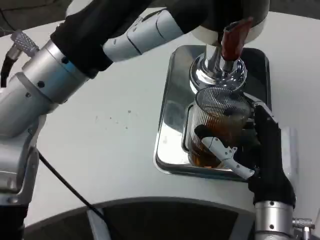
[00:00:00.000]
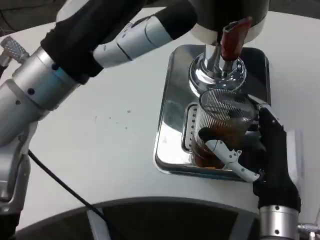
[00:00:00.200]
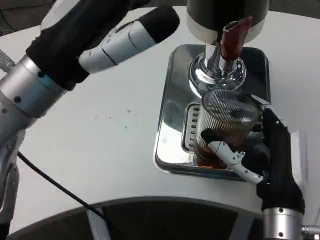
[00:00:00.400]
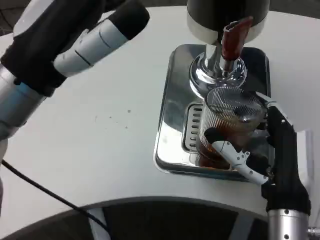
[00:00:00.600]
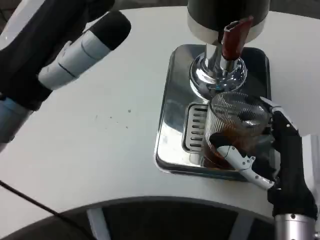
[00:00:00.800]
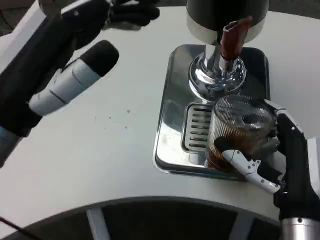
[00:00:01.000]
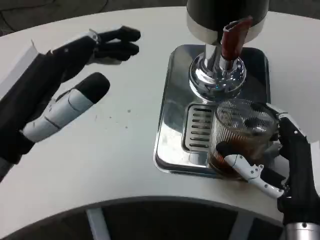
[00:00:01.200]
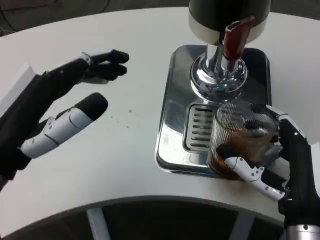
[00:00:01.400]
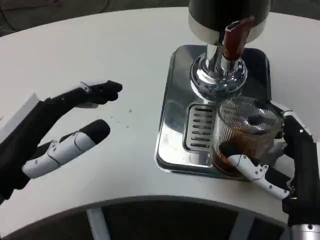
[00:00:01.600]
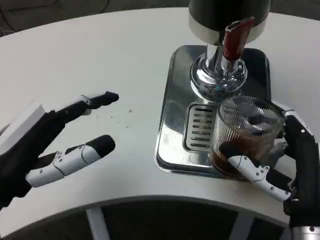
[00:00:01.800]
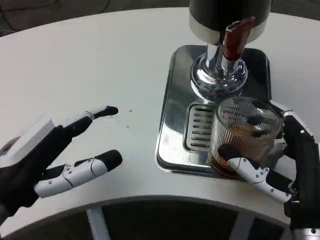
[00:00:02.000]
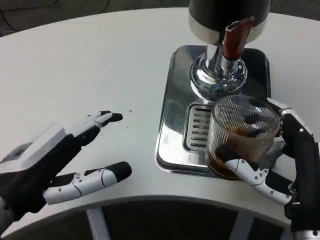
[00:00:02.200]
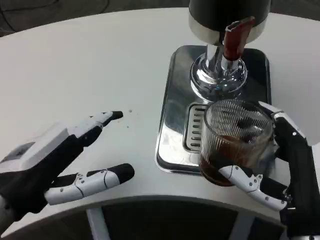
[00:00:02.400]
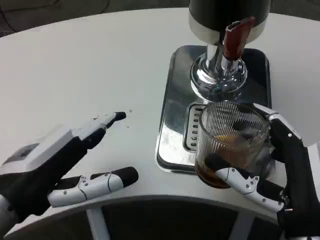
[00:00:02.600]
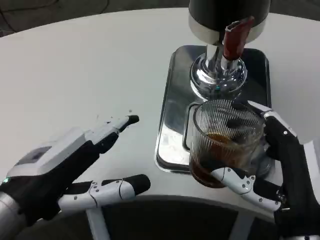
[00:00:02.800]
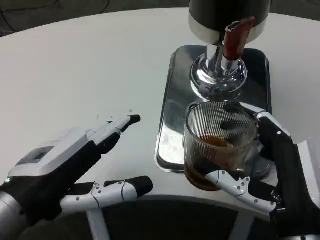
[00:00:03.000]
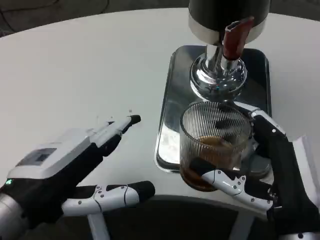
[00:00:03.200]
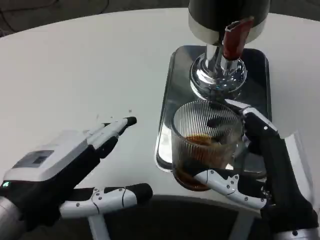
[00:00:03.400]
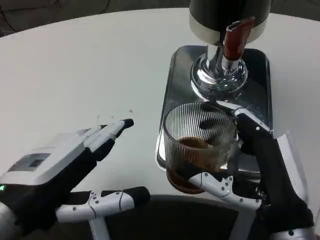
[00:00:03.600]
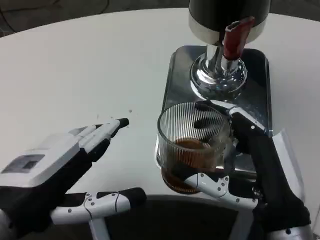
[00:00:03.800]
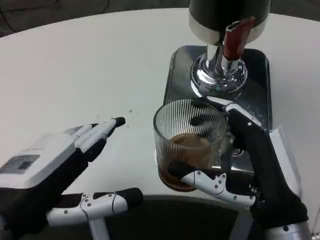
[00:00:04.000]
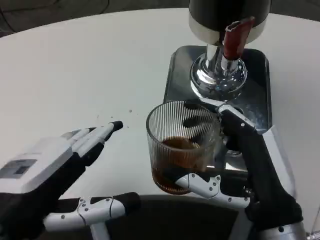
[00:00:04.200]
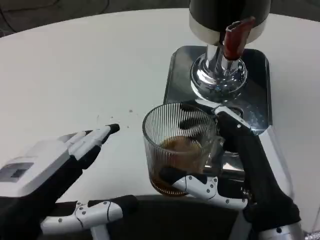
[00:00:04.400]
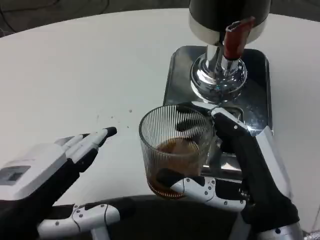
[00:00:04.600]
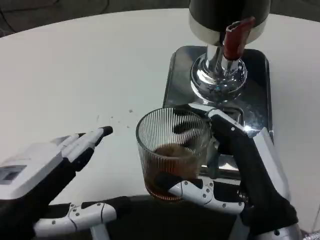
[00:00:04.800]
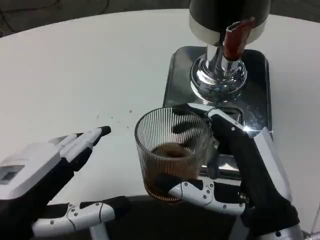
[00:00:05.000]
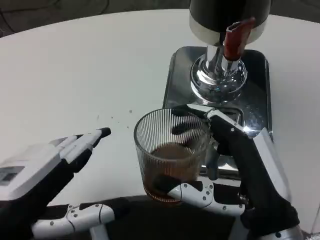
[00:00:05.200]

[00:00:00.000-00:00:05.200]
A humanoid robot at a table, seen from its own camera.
Task of the whole recording: Grasp the cup under the faucet to collect the drink, then remove the cup.
00:00:00.000 to 00:00:01.800: The left hand shifts some 15 cm downward, backward and to the left, while the right hand ends up approximately 5 cm from where it was.

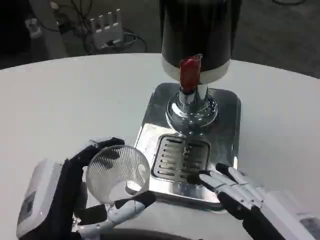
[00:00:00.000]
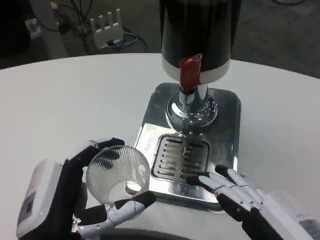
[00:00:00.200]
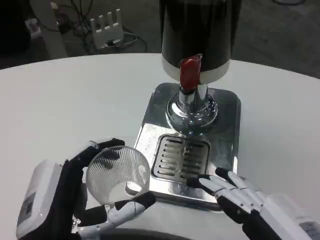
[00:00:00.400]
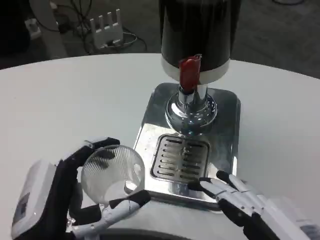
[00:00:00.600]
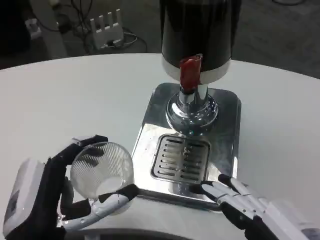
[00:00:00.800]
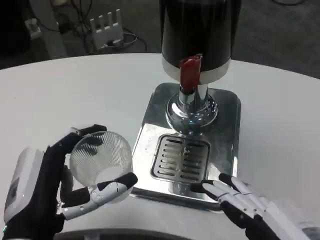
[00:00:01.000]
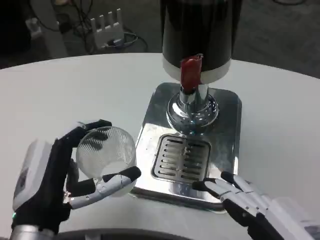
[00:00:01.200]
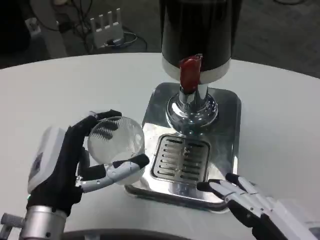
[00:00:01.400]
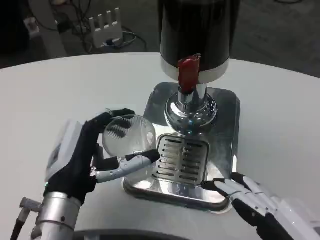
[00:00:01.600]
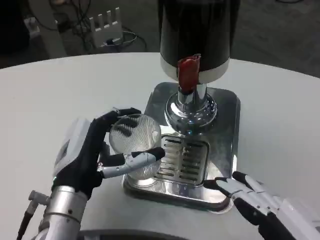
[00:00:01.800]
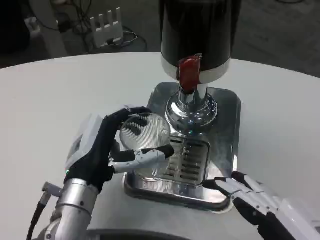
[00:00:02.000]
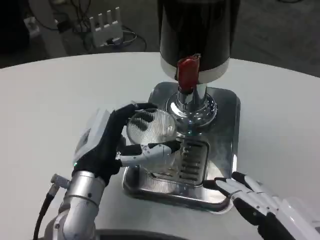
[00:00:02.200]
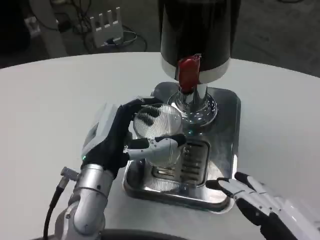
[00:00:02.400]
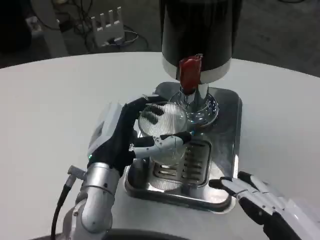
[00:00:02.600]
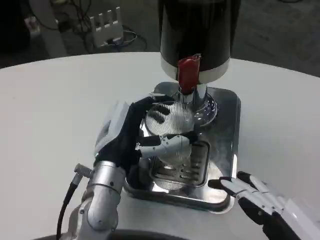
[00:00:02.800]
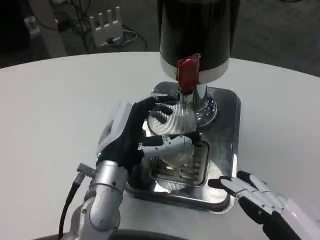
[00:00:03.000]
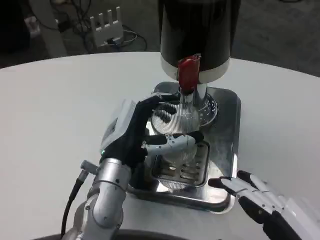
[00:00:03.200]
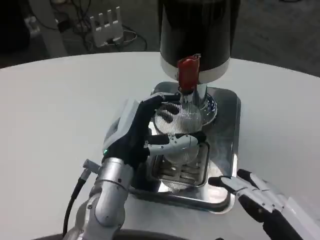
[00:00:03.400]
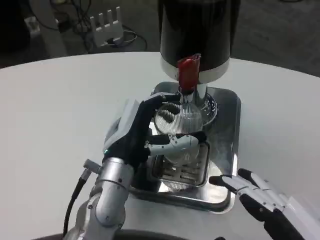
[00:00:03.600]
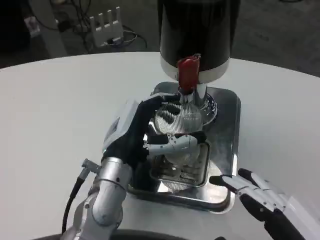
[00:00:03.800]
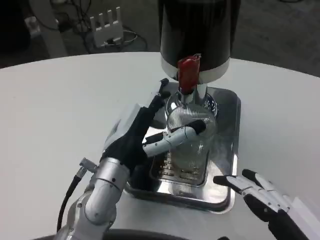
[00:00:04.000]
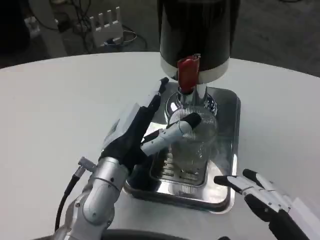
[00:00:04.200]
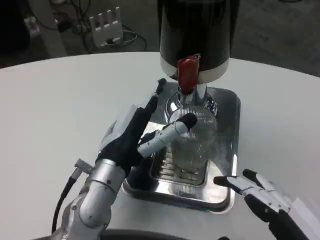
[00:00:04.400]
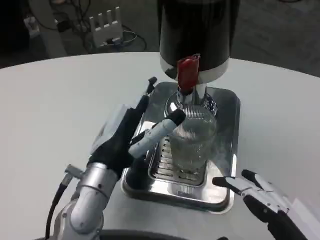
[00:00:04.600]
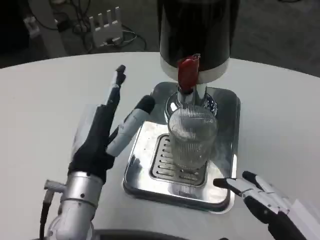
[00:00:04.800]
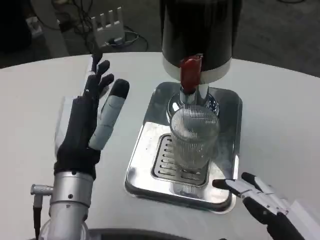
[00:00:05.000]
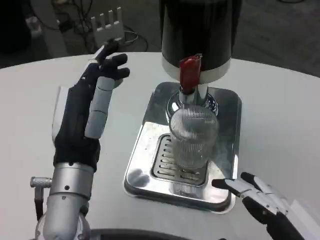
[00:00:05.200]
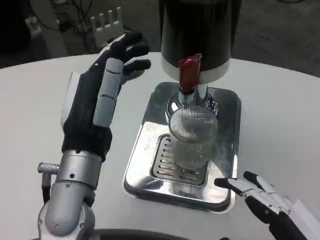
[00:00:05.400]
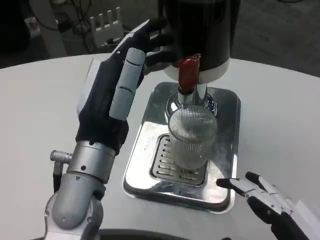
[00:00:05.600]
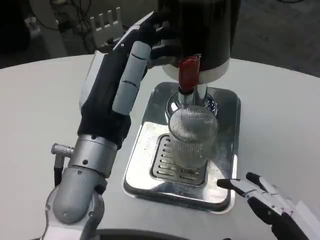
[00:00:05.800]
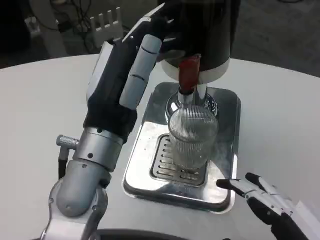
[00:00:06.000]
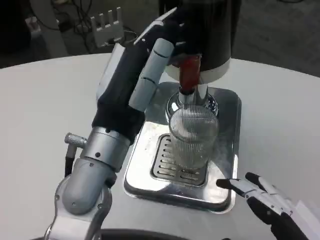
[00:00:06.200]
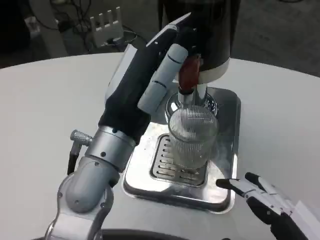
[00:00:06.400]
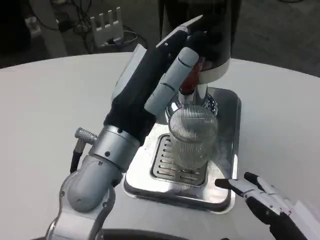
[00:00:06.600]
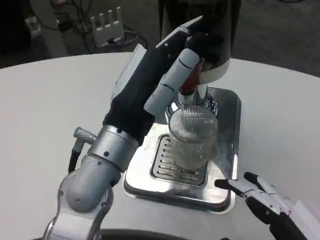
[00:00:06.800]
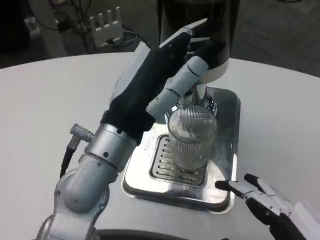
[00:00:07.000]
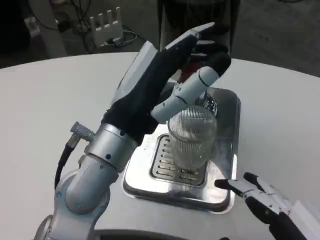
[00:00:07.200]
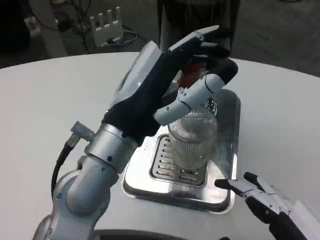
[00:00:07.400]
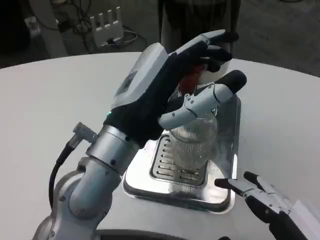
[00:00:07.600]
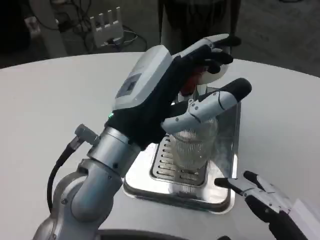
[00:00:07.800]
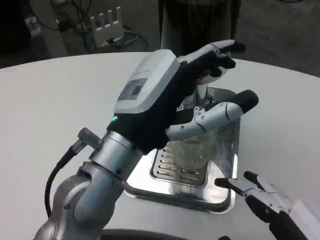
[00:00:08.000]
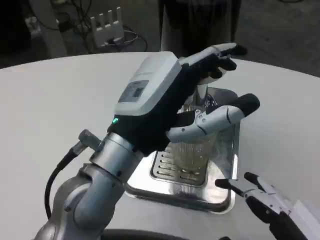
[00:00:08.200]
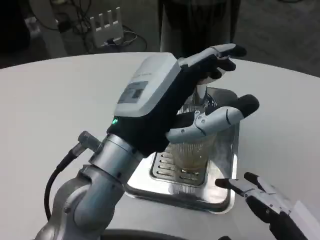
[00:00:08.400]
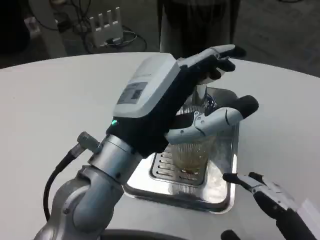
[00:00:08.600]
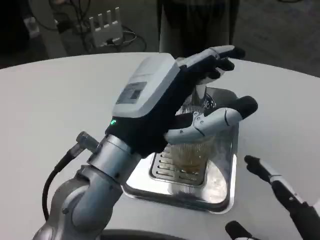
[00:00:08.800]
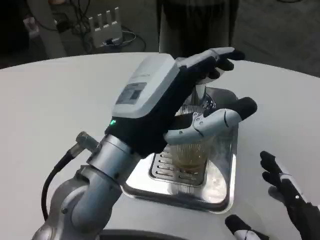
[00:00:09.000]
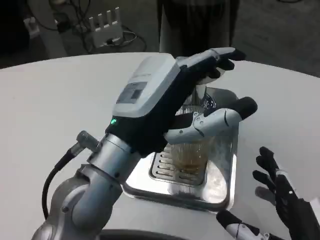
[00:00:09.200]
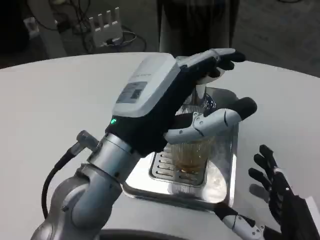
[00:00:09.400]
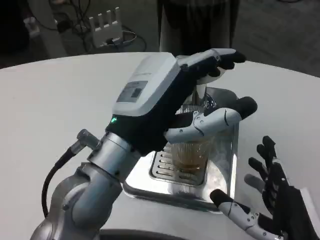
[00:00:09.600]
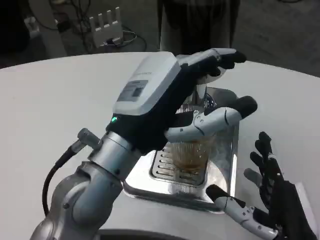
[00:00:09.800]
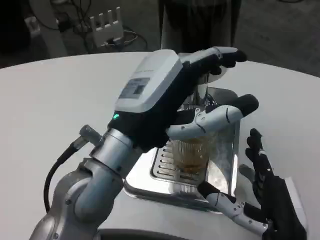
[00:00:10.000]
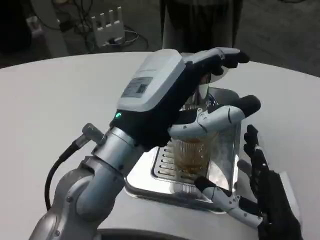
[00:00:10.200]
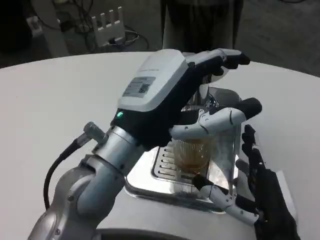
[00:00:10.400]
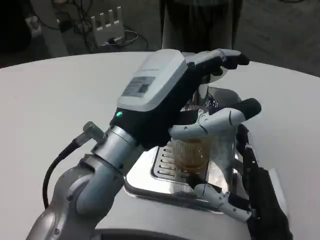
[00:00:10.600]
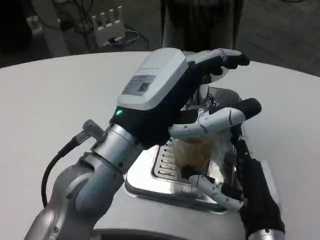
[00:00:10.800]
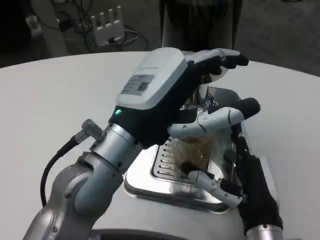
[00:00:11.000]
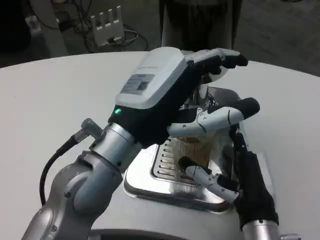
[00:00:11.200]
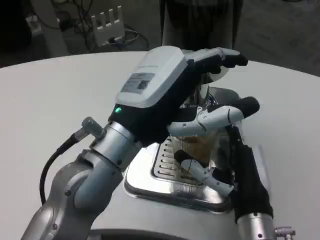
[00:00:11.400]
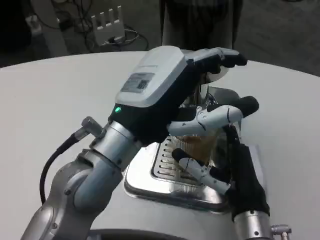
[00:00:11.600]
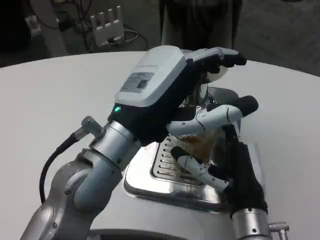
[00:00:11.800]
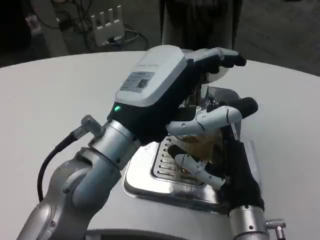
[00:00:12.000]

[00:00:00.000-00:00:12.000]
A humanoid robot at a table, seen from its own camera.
Task of the whole recording: Grasp the cup under the faucet to collect the drink, then remove the cup.
00:00:00.000 to 00:00:01.600: The left hand travels forward by roughly 10 cm.
00:00:01.600 to 00:00:03.000: The left hand shifts about 10 cm to the right and forward.
00:00:03.000 to 00:00:04.400: There are only small adjustments of the hands.
00:00:04.400 to 00:00:06.000: The left hand shifts roughly 5 cm upward.
00:00:09.000 to 00:00:10.400: The right hand travels forward by some 10 cm.
00:00:10.400 to 00:00:12.000: The right hand goes about 5 cm forward.

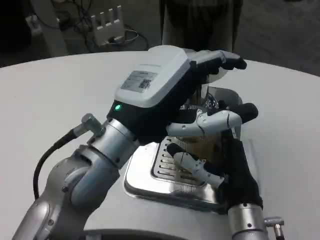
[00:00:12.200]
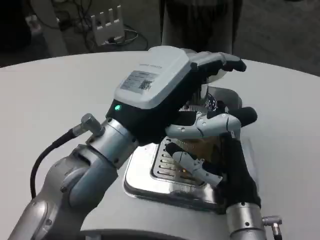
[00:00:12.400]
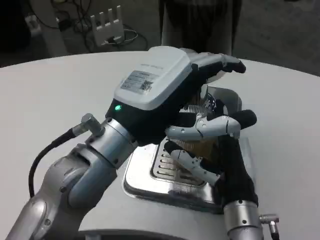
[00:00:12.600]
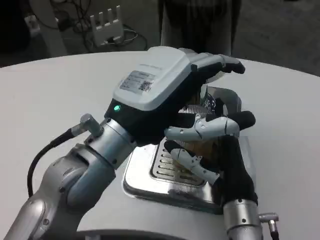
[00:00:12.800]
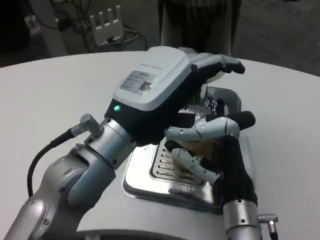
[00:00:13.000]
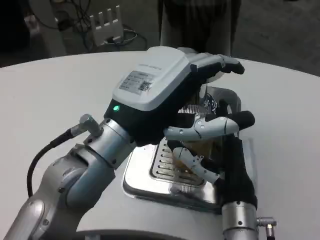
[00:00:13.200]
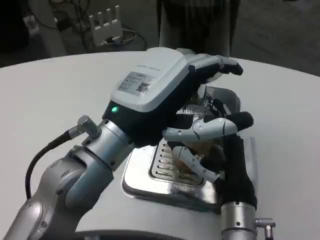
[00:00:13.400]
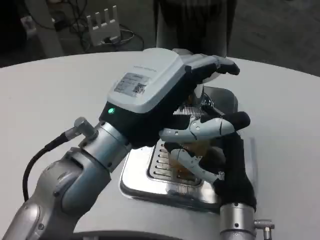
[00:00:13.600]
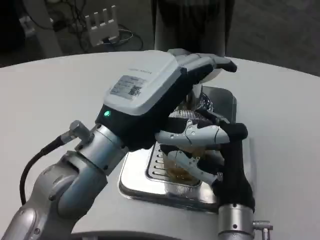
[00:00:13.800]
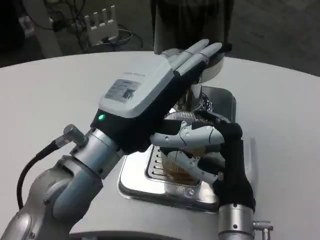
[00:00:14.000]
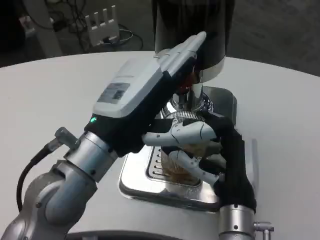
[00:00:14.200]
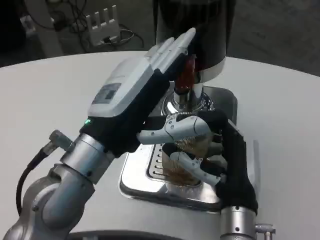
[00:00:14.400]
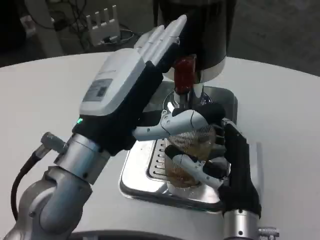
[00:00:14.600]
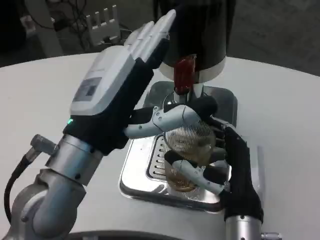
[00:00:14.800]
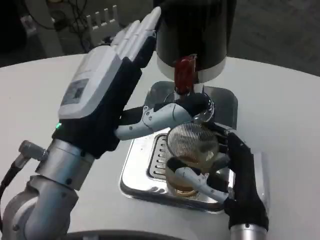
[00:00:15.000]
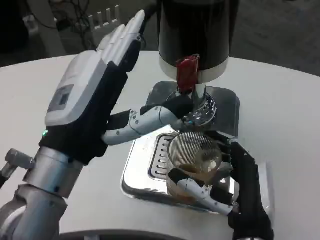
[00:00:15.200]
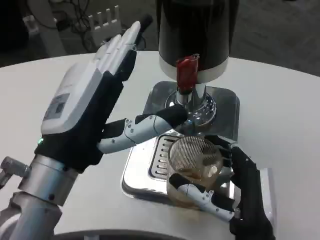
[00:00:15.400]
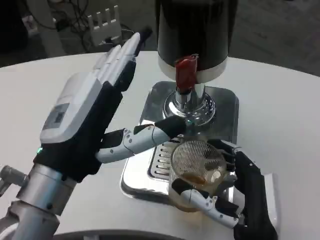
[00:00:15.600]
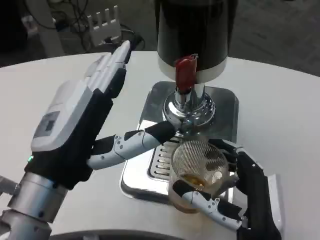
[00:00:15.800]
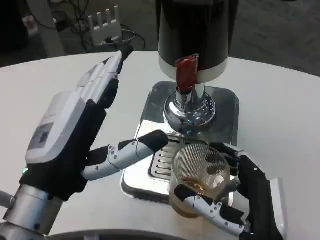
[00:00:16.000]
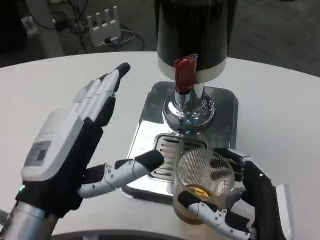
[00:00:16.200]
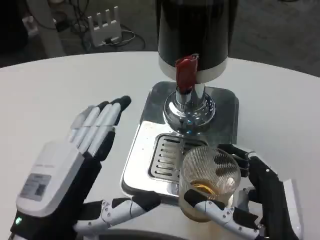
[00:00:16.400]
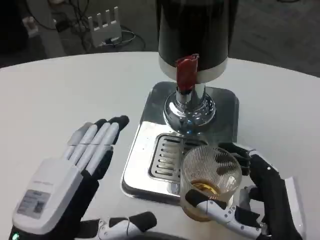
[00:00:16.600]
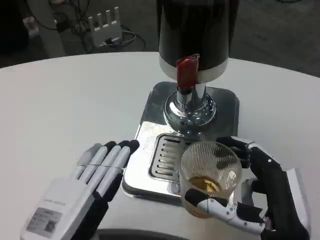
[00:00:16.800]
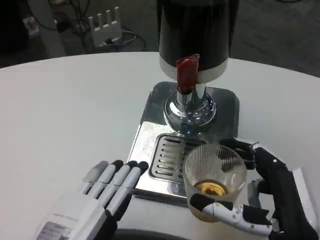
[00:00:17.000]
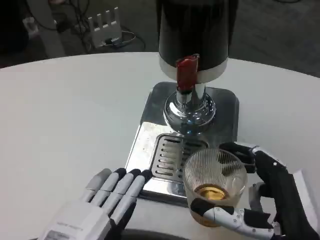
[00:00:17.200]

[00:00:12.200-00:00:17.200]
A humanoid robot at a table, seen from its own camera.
Task of the whole recording: Grasp the cup under the faucet to collect the drink, then remove the cup.
00:00:13.800 to 00:00:15.600: The left hand ends up some 5 cm from where it was. The right hand heads backward, covering approximately 5 cm.
00:00:15.600 to 00:00:17.200: The left hand goes about 15 cm downward and backward. Meanwhile the right hand moves to the right, some 5 cm.
